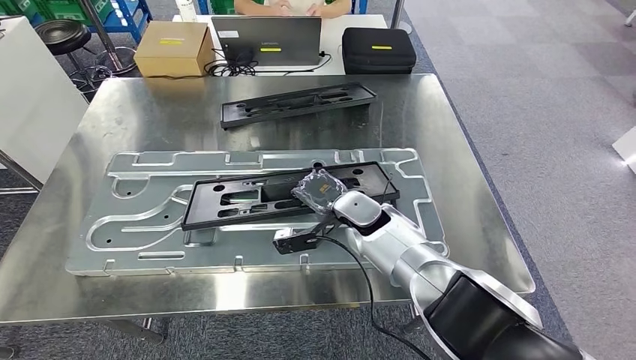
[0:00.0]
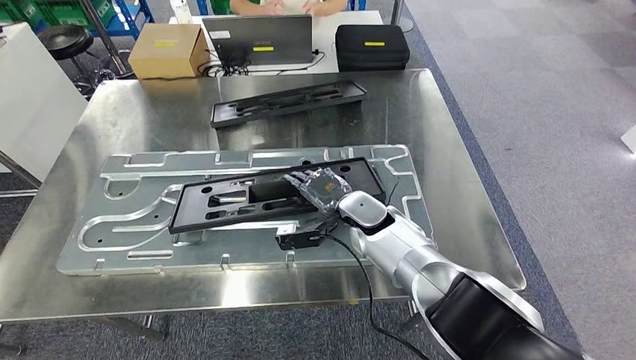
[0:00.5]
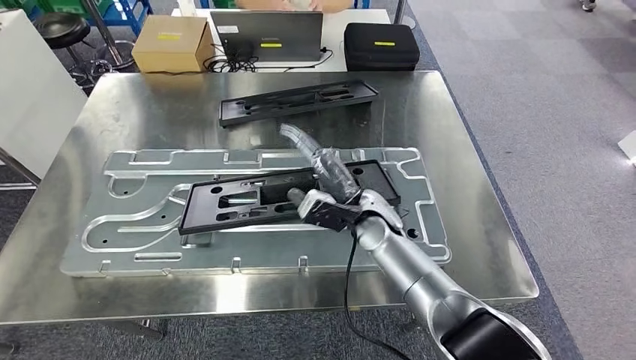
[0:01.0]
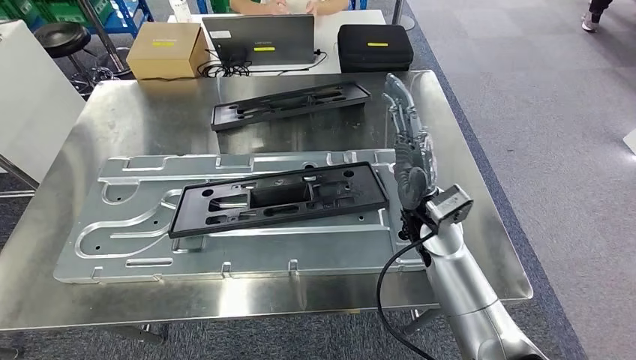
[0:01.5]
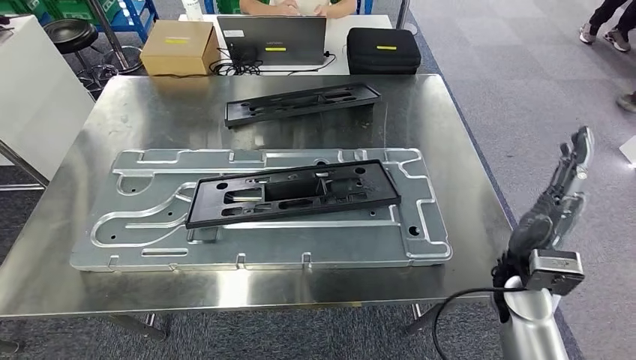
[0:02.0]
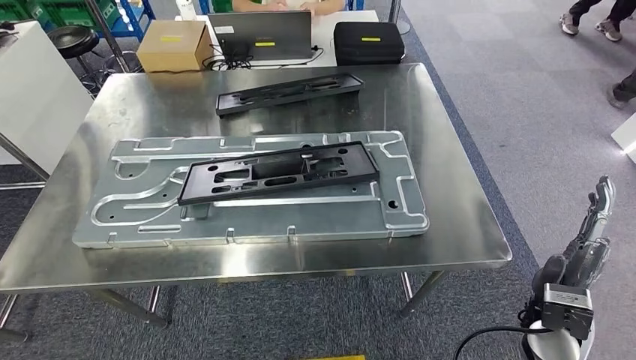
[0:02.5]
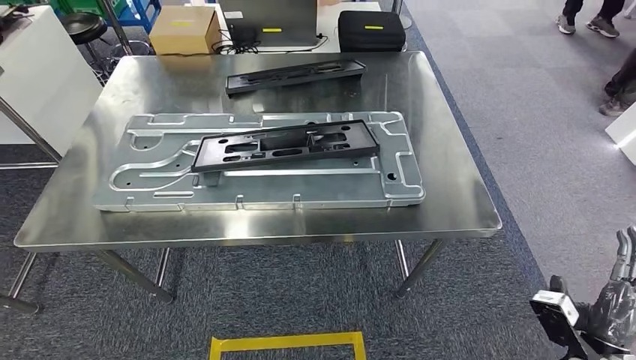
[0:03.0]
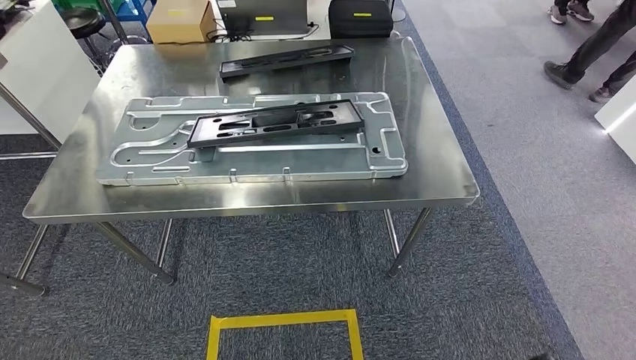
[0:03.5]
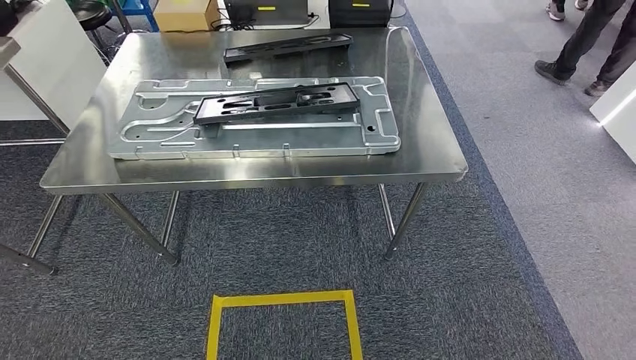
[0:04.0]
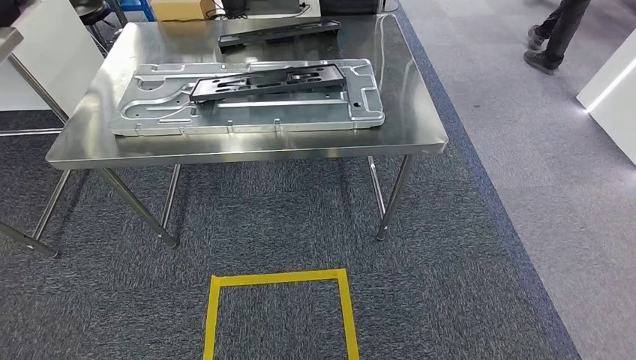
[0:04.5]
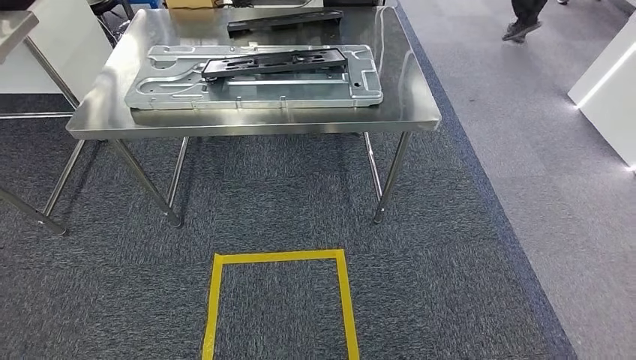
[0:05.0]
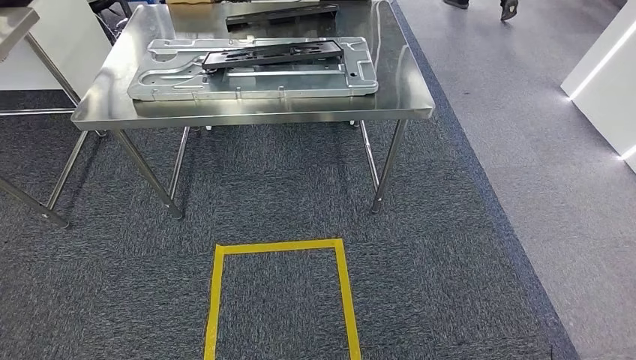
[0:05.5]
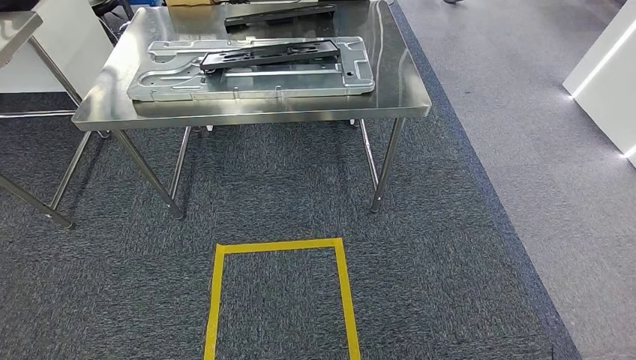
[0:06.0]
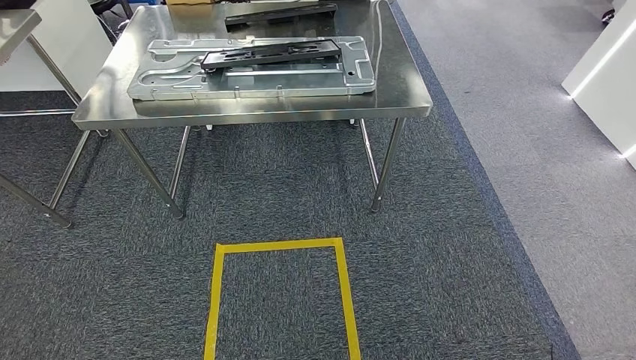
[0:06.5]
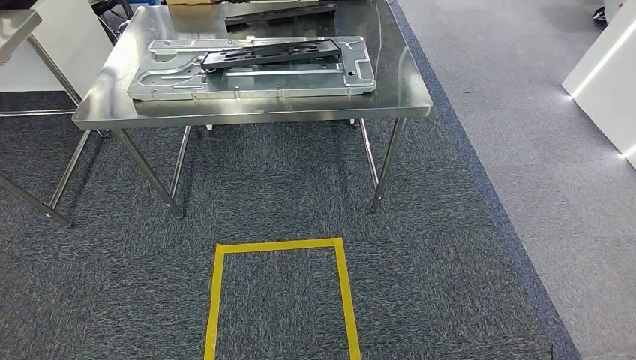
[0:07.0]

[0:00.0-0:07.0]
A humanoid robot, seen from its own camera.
Step, 0:00.0 to 0:02.0: Insert the large material into the corresponding slot on the workbench.
Step, 0:02.5 to 0:07.0: Move to the initial position of the shelf.
0:05.0 to 0:07.0: The hands move only a little.
